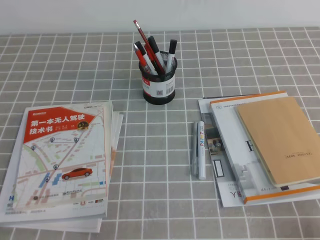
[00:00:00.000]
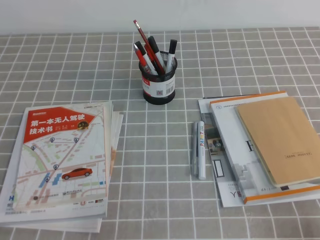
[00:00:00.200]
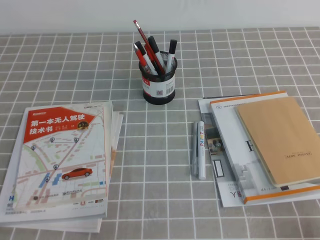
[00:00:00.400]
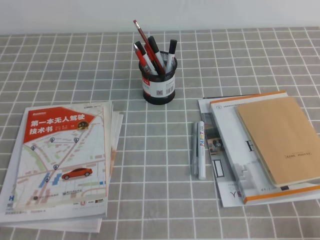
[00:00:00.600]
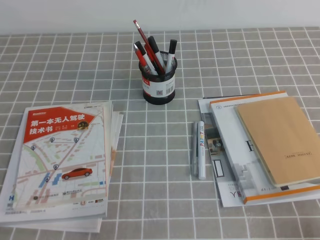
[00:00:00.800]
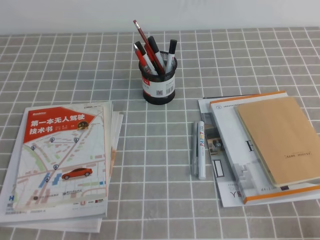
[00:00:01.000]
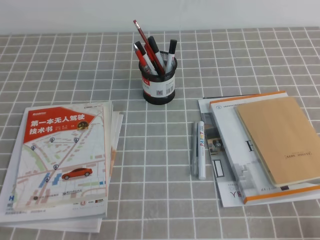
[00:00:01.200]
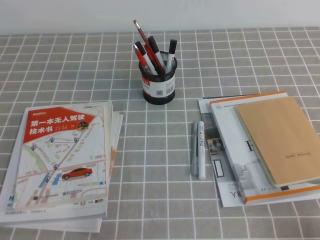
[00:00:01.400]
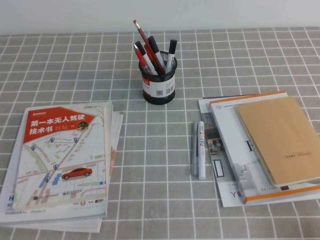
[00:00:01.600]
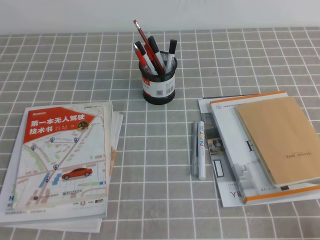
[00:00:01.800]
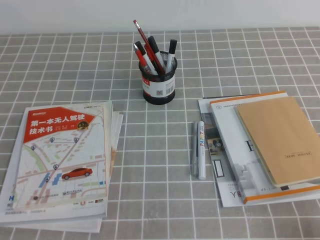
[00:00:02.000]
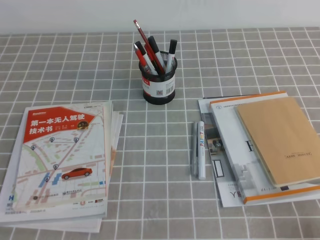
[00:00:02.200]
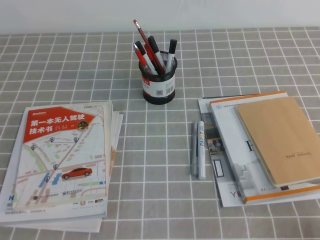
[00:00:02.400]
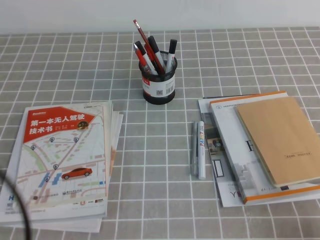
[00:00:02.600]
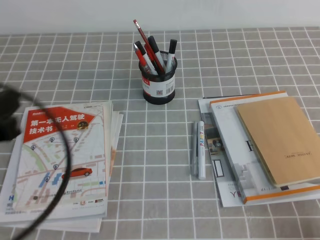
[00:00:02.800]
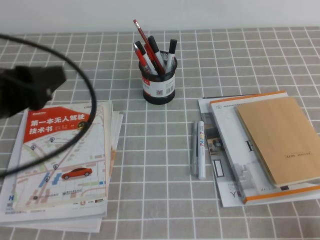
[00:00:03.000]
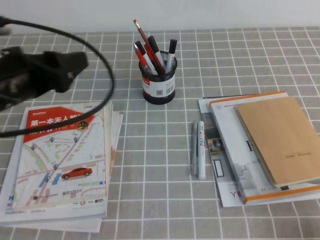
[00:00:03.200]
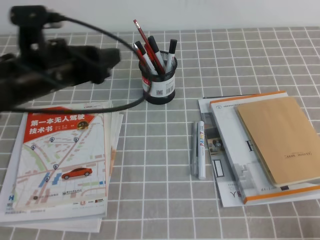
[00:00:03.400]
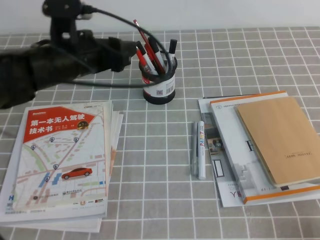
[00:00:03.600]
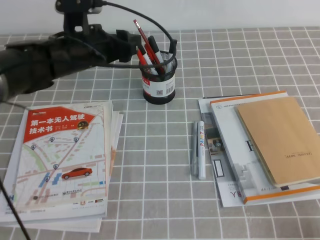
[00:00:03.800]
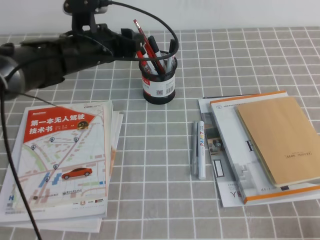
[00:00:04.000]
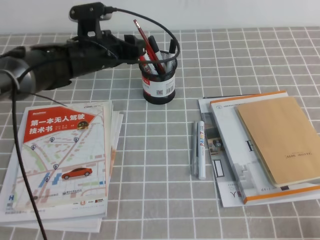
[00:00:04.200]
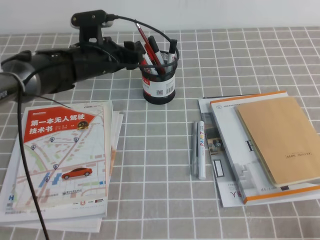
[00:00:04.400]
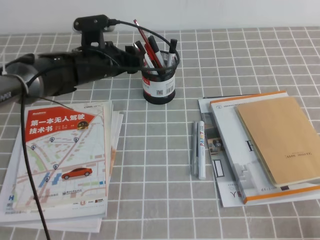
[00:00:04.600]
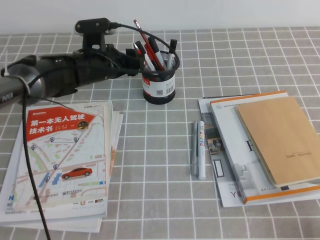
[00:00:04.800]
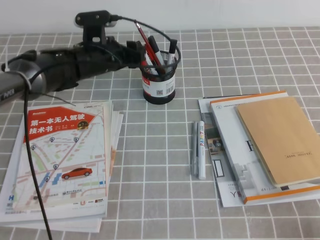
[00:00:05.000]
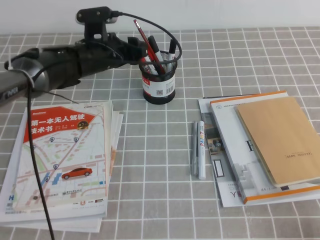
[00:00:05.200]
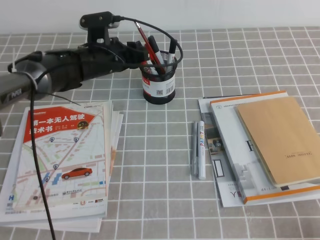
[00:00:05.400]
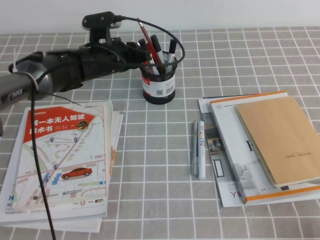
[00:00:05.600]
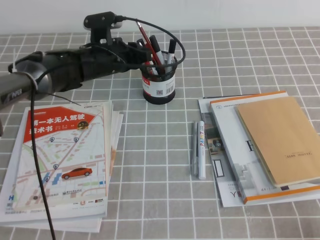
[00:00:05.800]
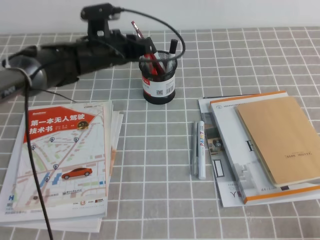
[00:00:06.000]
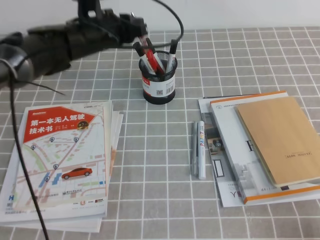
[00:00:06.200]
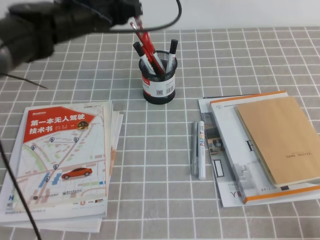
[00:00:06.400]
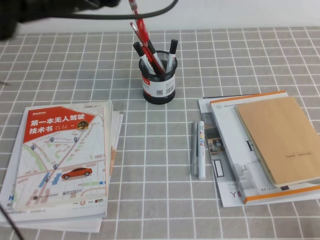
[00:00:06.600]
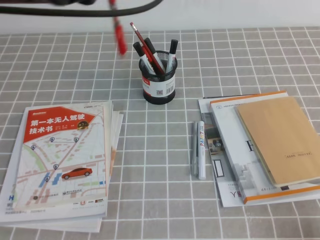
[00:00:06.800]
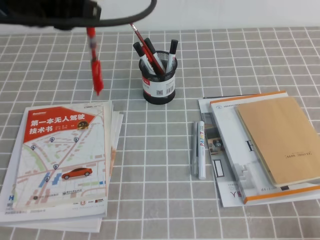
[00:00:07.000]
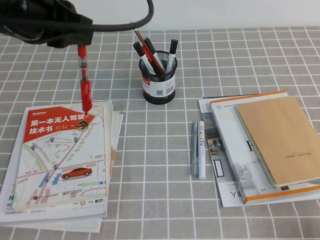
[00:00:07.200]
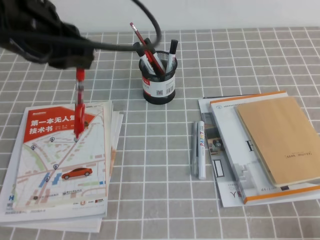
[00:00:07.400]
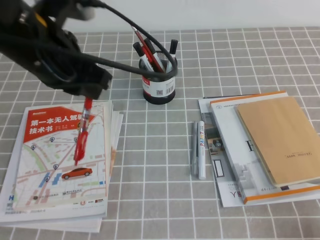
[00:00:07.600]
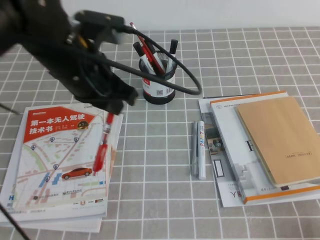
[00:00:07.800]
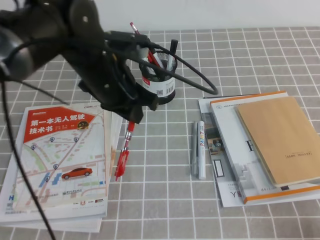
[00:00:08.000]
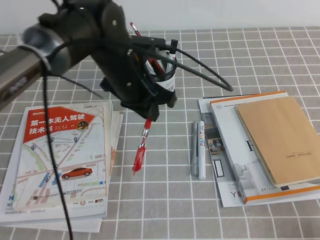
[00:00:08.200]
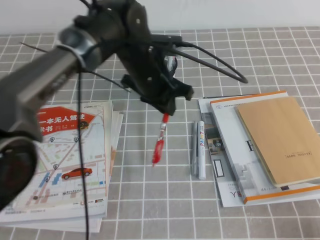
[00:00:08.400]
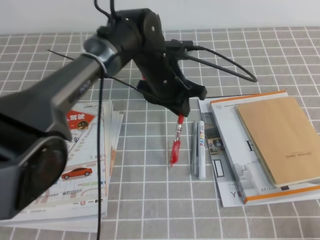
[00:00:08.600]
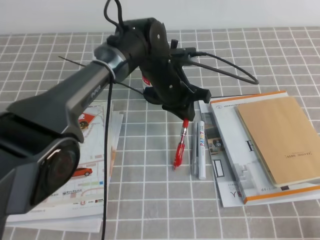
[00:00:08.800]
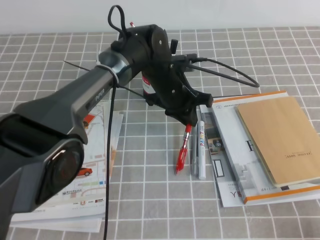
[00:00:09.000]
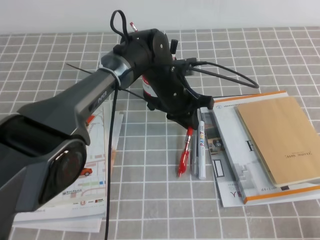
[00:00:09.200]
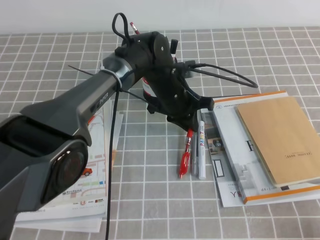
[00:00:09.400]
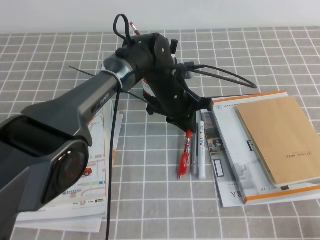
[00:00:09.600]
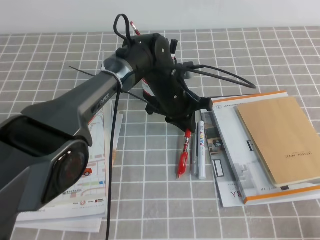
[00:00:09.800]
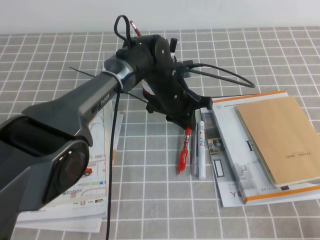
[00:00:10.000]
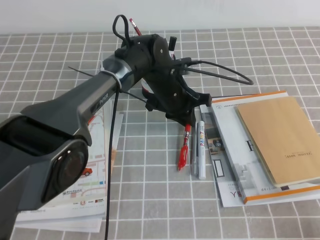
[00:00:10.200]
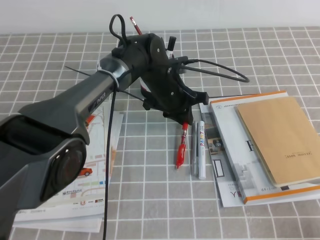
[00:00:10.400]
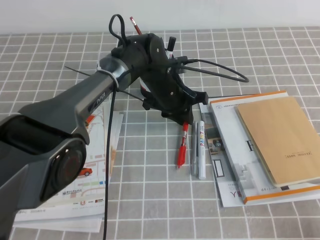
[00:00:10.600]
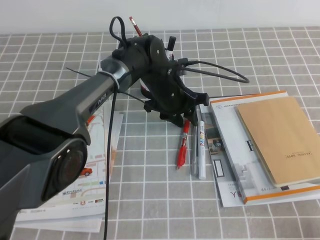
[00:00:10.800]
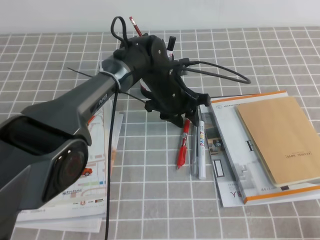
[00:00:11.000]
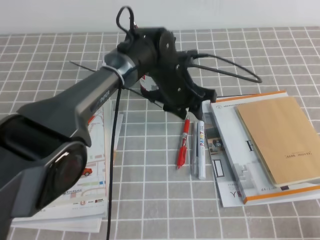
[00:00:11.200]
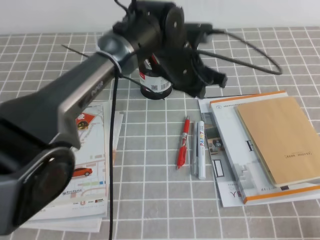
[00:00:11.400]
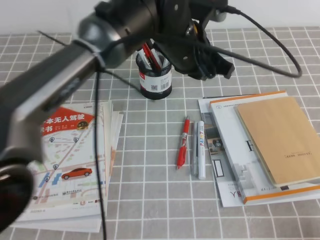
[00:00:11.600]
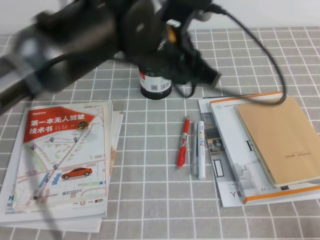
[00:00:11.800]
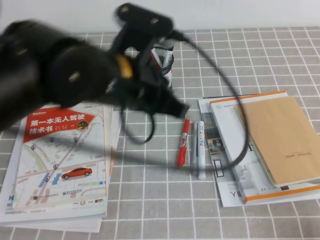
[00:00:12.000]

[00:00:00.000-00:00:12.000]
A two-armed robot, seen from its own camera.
00:00:01.600 to 00:00:03.000: The left gripper travels upward and forward by approximately 20 cm, and opens.
00:00:03.000 to 00:00:04.400: The left gripper moves forward, to the right and downward, some 30 cm, and opens up.
00:00:04.400 to 00:00:06.000: The left gripper closes up.
00:00:06.000 to 00:00:07.600: The left gripper travels backward and upward by about 20 cm.
00:00:07.600 to 00:00:09.000: The left gripper moves downward, to the right and forward, approximately 25 cm.
00:00:09.000 to 00:00:10.400: There are only small adjustments of the grippers.
00:00:10.400 to 00:00:12.000: The left gripper goes about 25 cm upward and backward, and opens, then closes again.

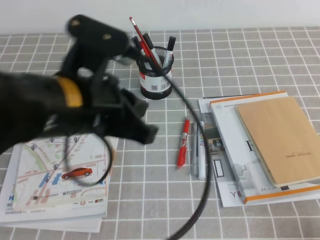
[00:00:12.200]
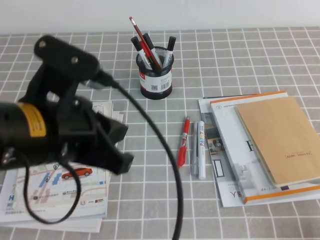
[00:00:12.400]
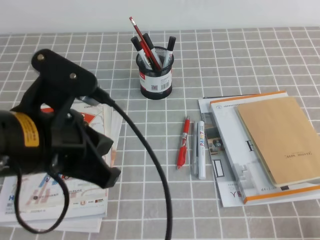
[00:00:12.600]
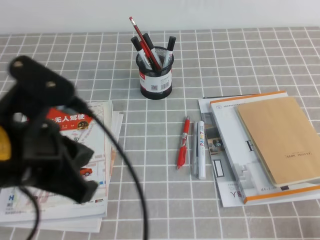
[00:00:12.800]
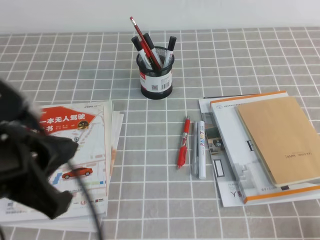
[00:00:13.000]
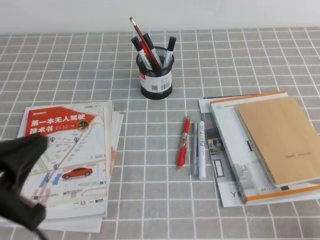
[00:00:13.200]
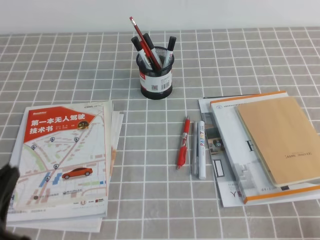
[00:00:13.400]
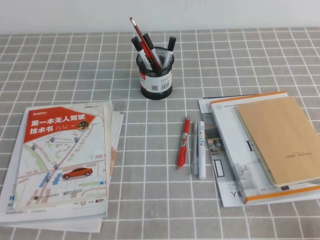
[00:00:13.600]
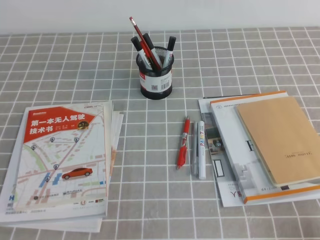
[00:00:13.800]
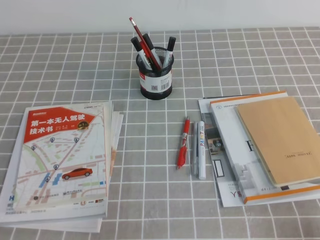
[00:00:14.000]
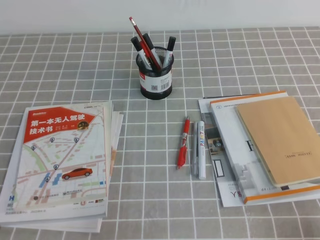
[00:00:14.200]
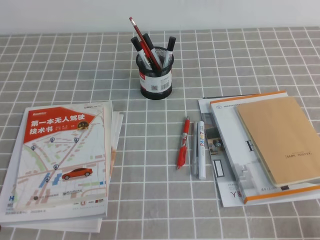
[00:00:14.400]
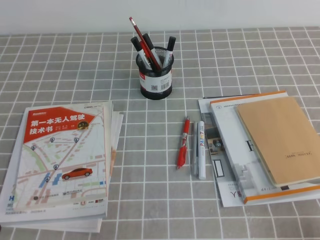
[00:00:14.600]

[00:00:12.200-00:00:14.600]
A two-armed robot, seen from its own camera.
Step, 00:00:12.200 to 00:00:14.600: Pick up the pen from the pen holder.
00:00:12.200 to 00:00:13.400: The left gripper is displaced to the left, backward and downward by approximately 20 cm.
00:00:13.400 to 00:00:14.600: The left gripper heads downward, covering approximately 10 cm.
